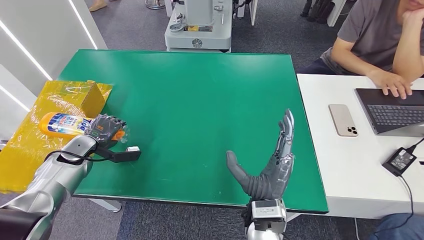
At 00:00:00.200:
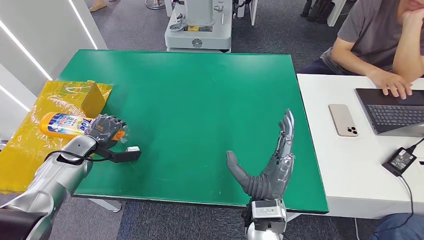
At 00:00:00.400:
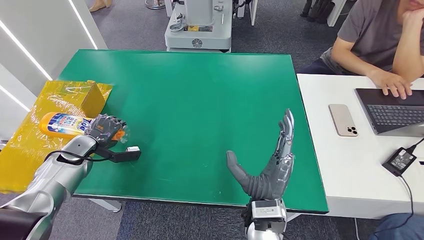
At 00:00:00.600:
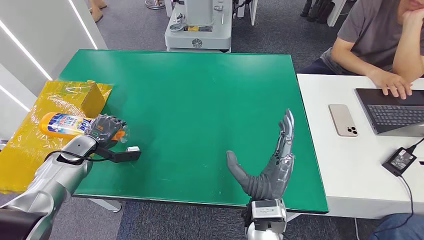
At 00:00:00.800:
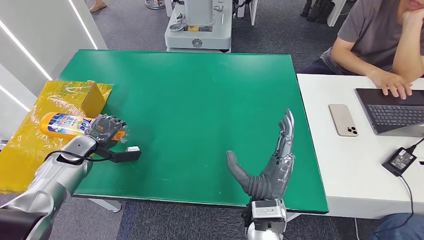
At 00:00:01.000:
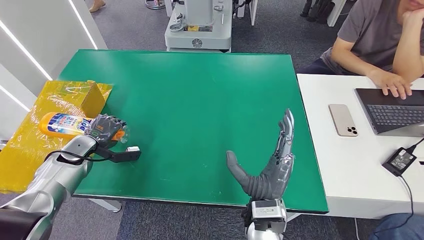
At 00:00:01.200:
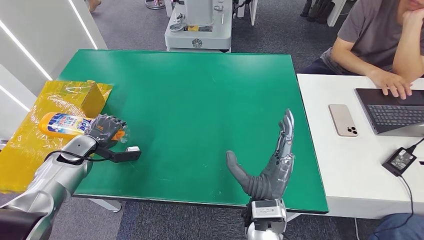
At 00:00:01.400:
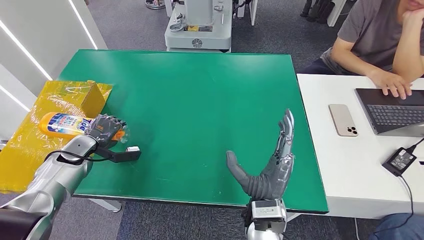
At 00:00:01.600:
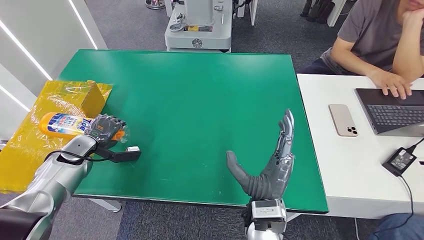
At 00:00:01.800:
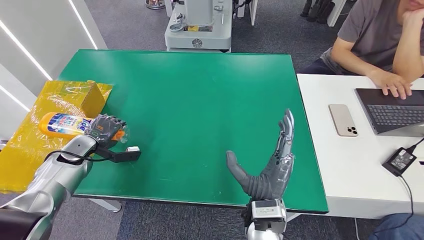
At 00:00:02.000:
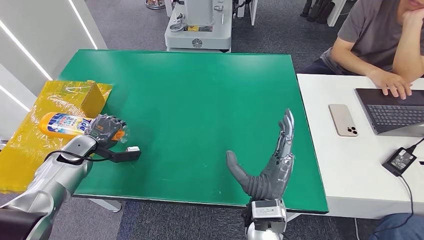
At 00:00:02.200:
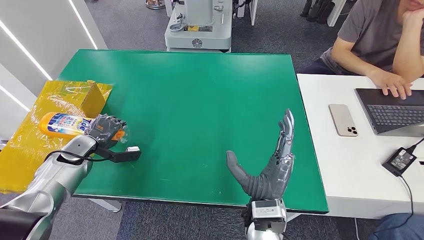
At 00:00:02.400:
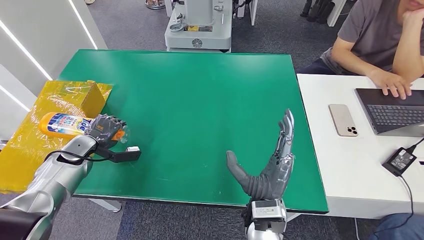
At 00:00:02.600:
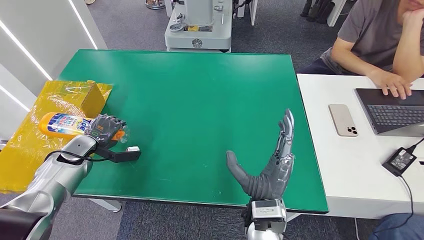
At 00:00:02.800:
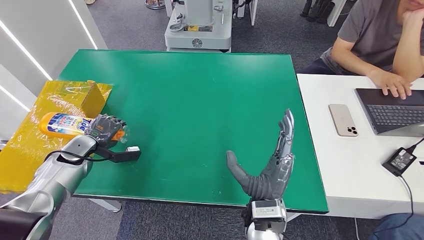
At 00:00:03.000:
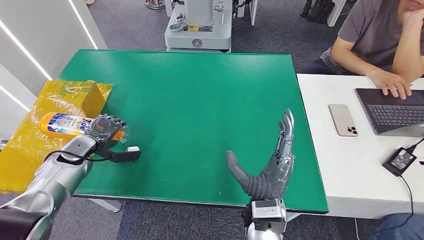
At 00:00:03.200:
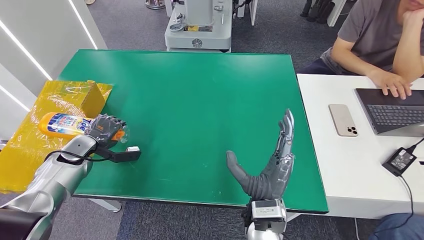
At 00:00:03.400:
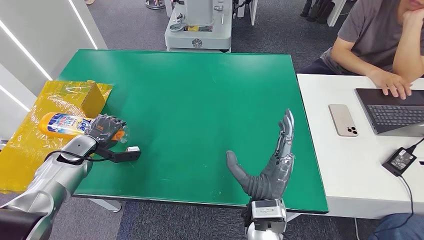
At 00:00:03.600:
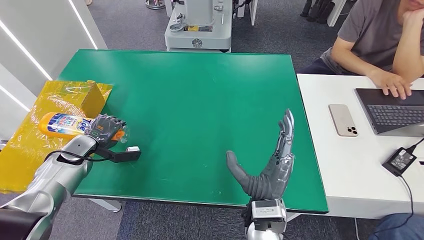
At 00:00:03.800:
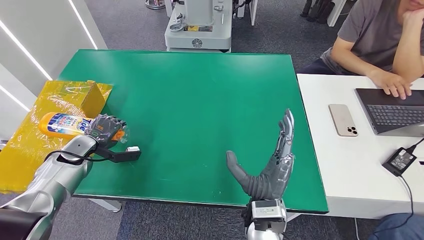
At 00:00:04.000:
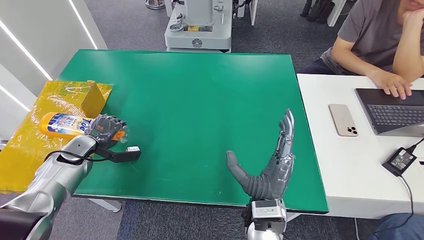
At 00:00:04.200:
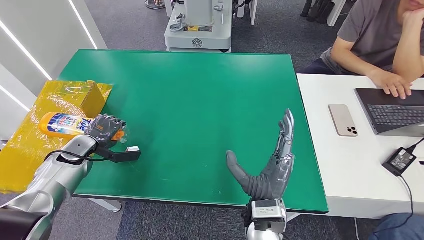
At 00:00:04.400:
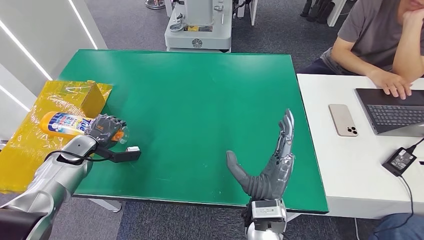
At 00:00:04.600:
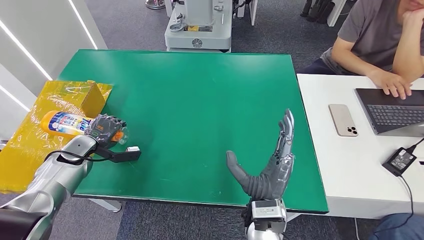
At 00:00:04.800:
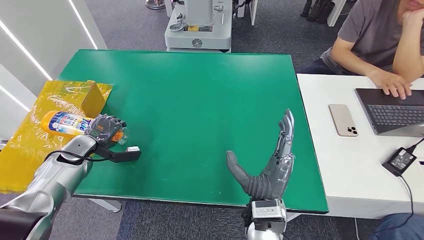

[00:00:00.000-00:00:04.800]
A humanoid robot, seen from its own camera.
00:00:00.000 to 00:00:04.800: The two hands keep their place.
